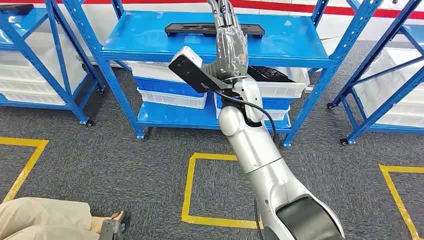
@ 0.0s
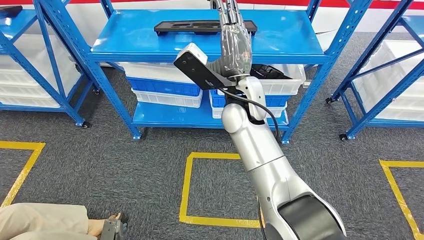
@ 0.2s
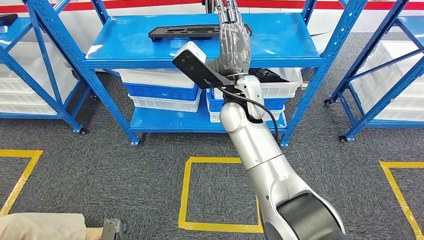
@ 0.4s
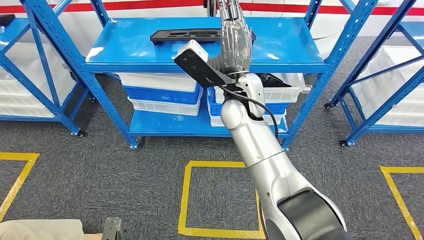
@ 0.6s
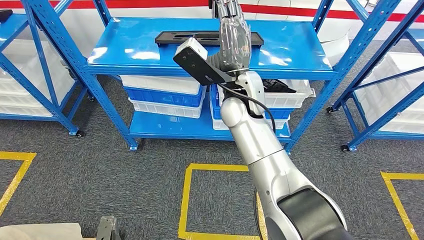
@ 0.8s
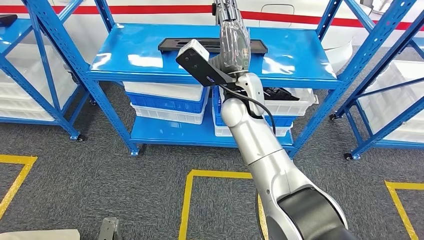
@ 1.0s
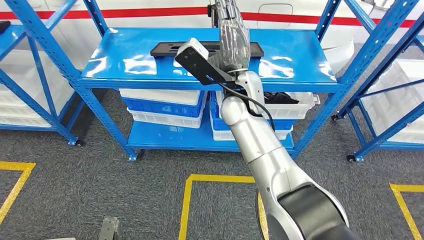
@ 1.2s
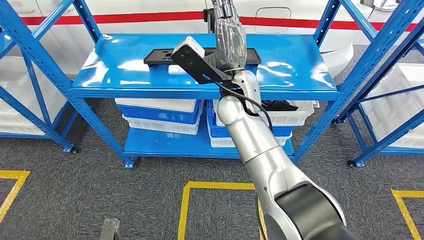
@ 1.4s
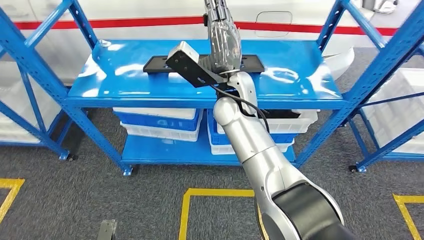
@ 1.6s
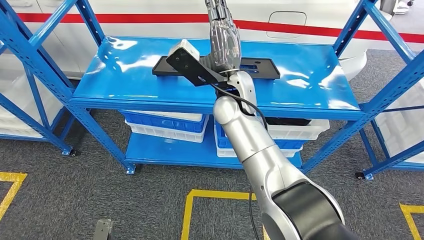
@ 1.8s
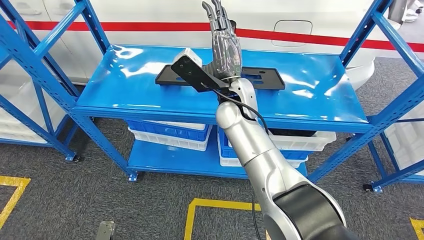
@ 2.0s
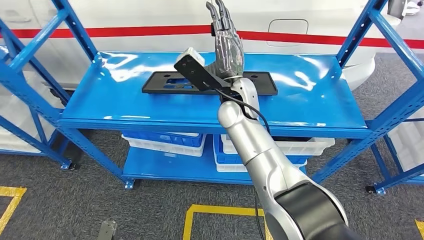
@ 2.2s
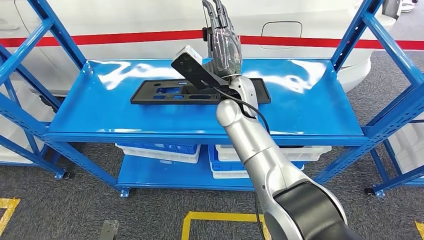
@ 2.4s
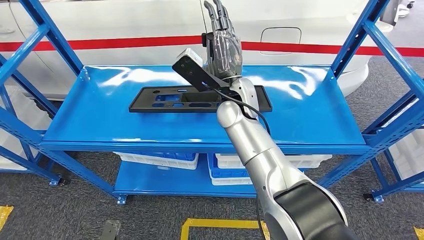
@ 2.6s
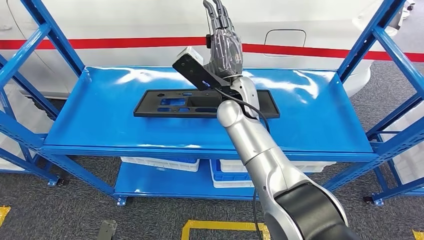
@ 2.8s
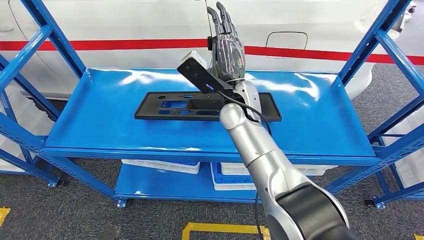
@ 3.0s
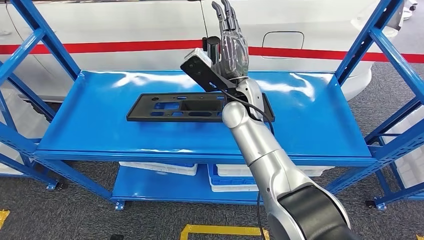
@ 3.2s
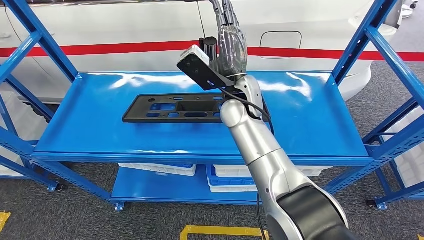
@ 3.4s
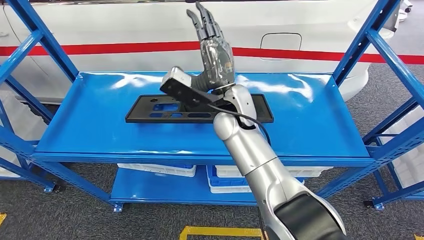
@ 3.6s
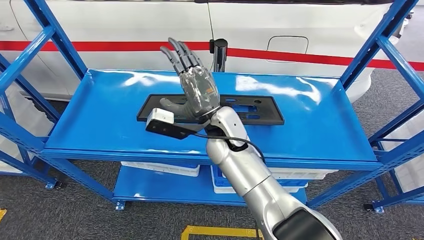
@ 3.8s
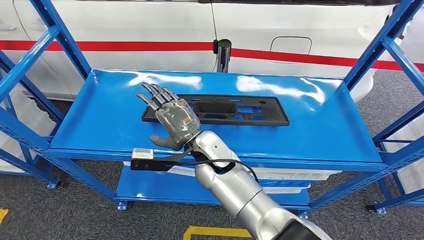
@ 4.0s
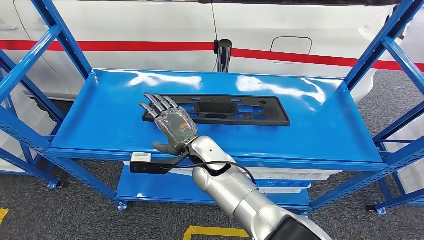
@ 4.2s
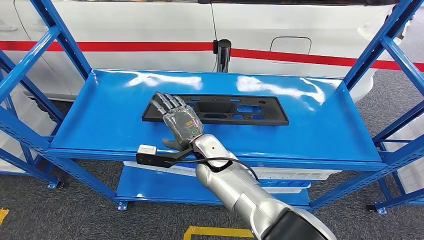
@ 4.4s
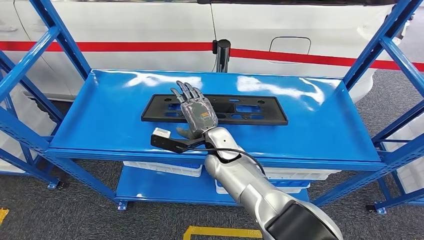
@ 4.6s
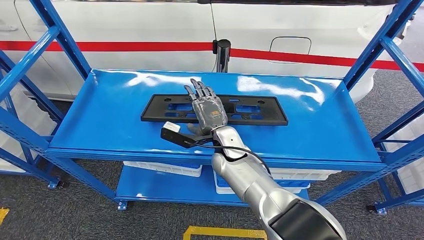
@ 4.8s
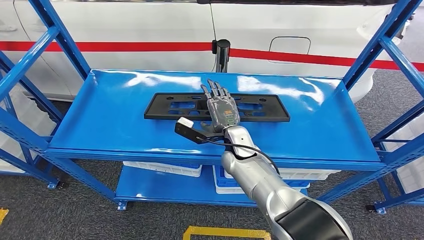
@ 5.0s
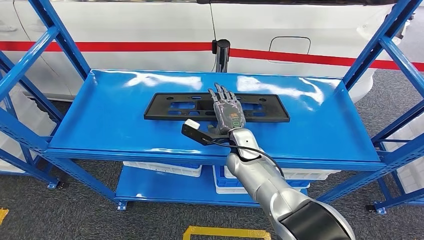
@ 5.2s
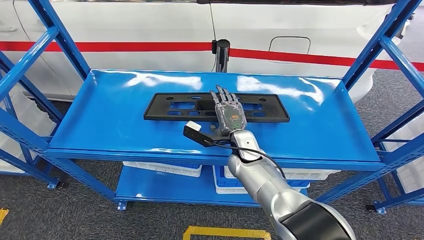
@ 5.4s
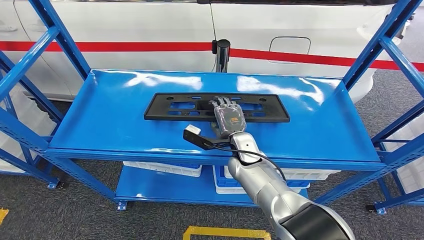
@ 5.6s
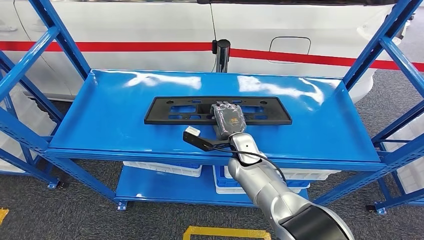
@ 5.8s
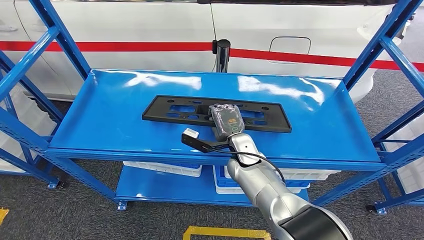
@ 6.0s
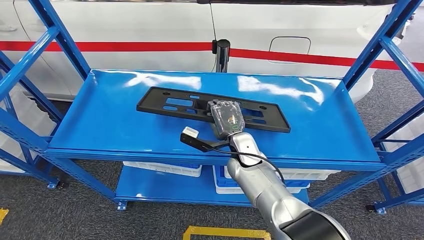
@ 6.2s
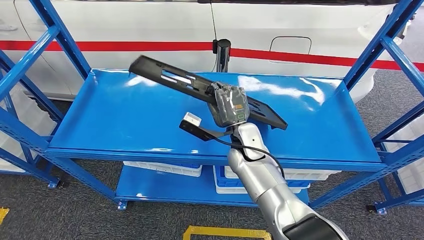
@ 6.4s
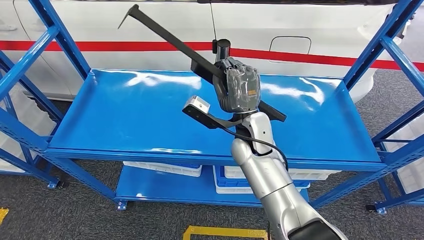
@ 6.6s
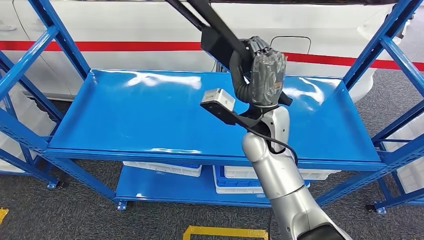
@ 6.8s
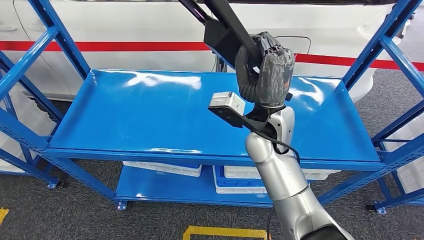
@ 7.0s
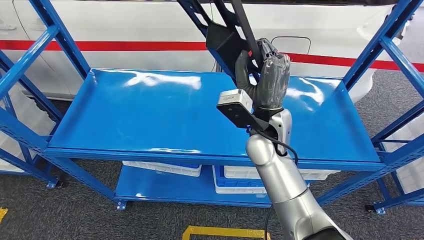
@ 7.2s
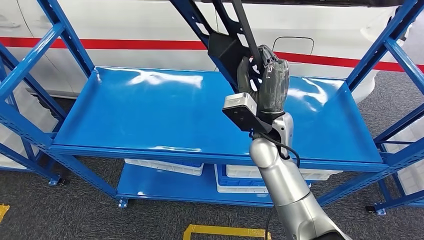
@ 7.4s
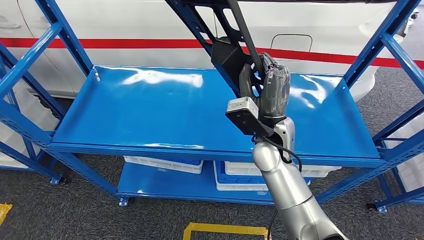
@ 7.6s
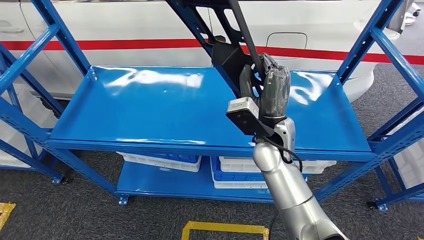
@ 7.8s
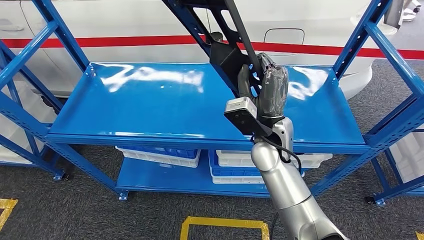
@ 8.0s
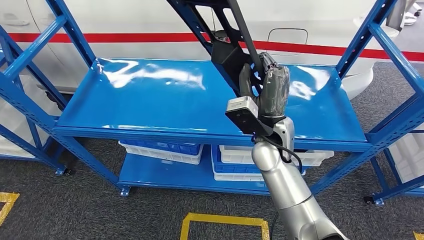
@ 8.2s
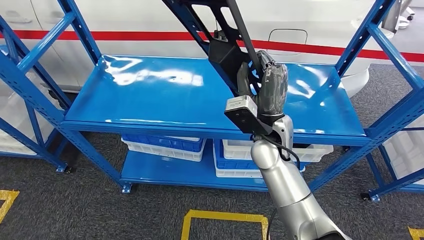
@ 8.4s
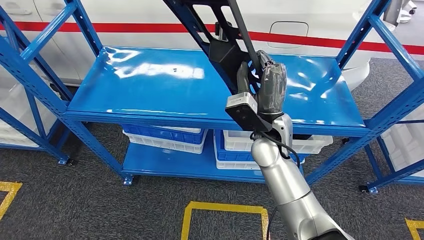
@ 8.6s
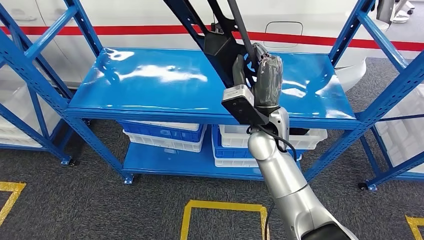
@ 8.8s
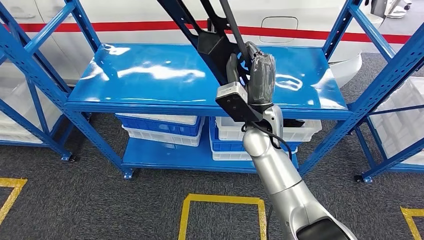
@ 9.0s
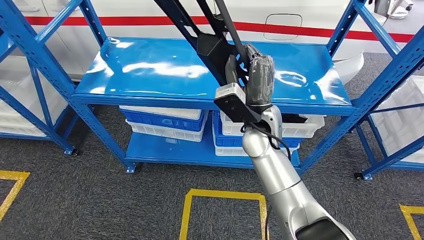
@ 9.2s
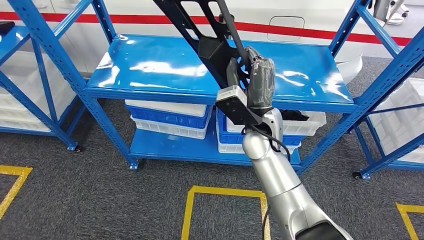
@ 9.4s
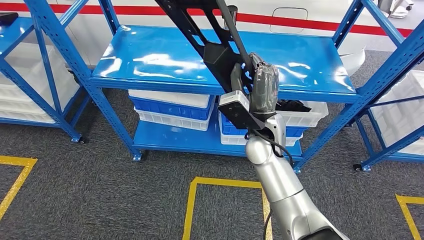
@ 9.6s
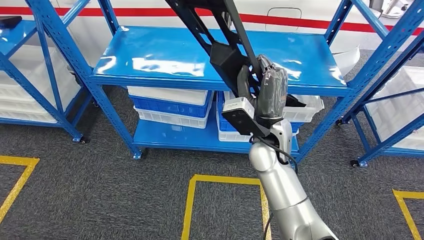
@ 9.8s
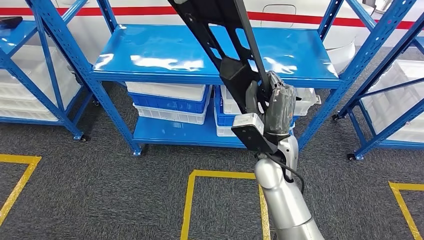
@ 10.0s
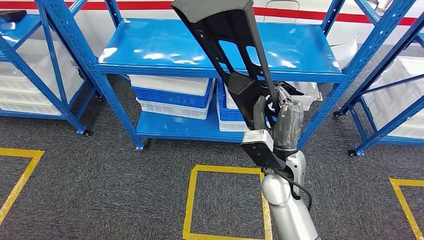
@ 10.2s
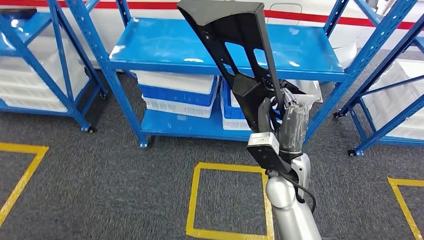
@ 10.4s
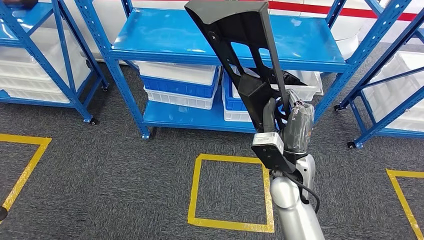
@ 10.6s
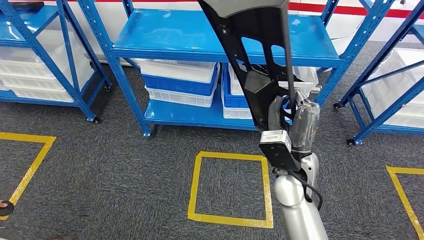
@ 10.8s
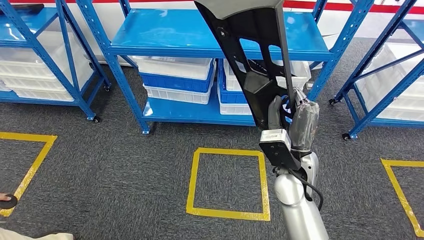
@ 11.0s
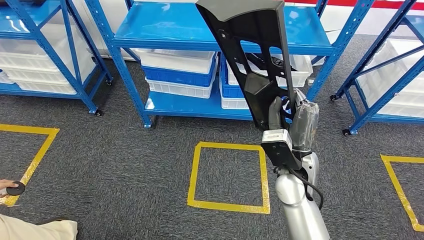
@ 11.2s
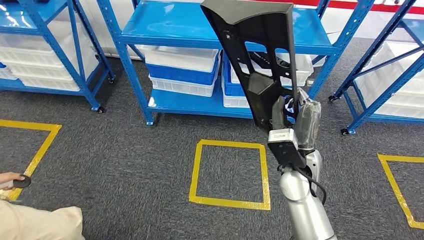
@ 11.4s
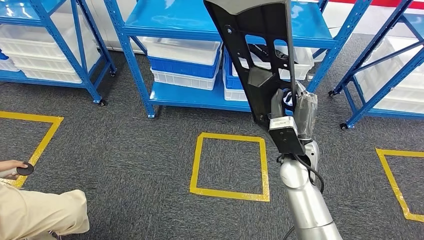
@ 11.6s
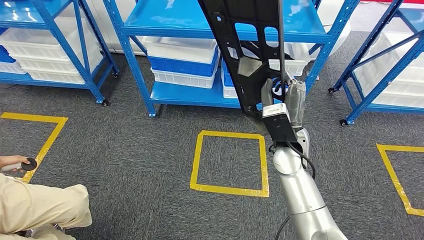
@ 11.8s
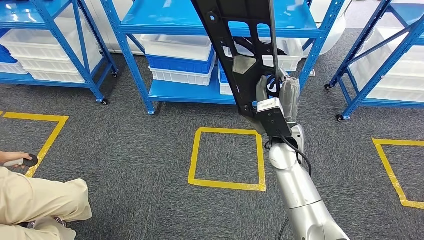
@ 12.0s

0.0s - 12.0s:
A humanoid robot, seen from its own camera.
Step, 0.0s - 10.2s: Pick up the large material from the shelf.
4.4s - 6.0s: The right hand shifts about 10 cm to the right.

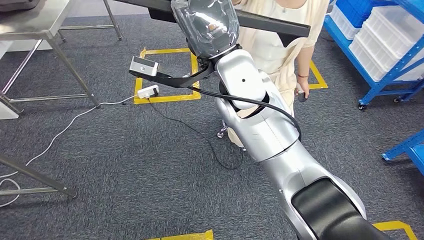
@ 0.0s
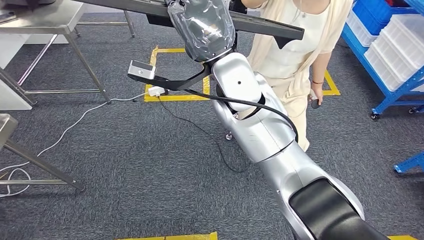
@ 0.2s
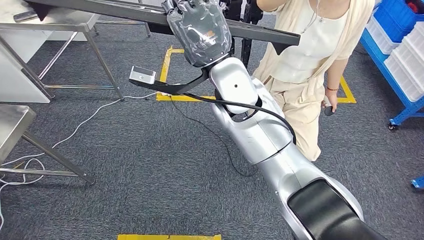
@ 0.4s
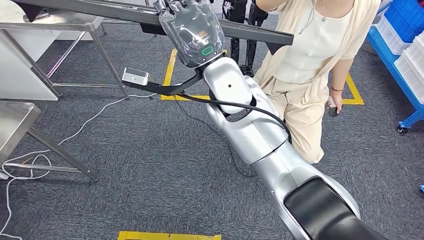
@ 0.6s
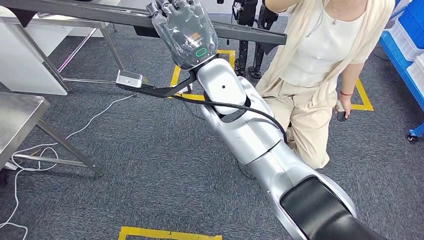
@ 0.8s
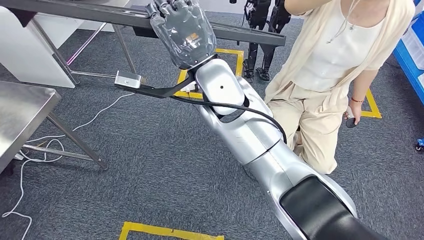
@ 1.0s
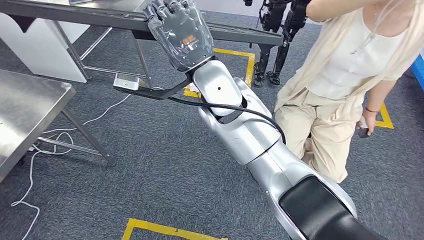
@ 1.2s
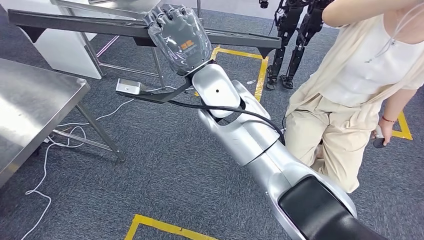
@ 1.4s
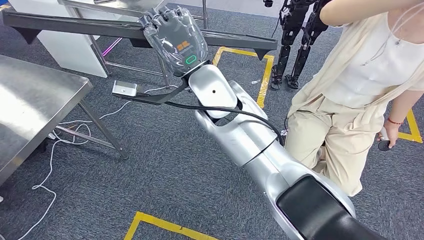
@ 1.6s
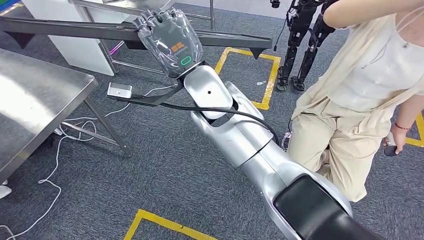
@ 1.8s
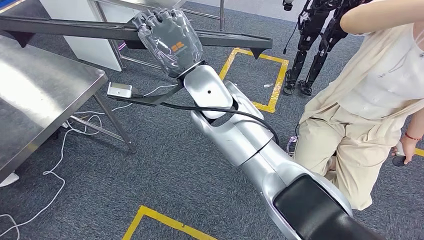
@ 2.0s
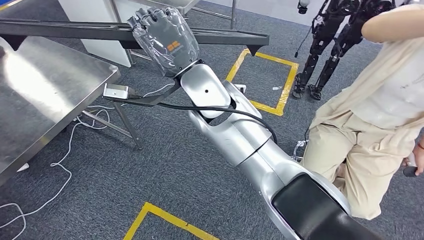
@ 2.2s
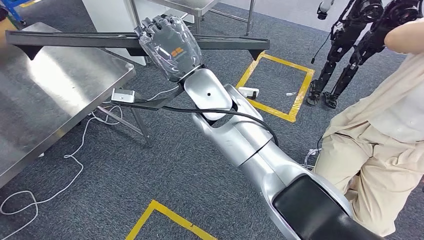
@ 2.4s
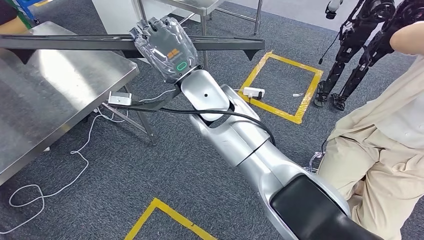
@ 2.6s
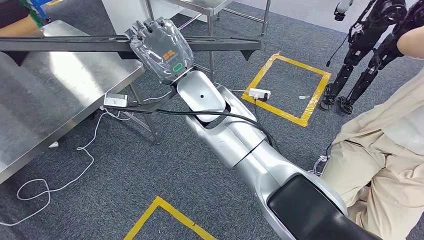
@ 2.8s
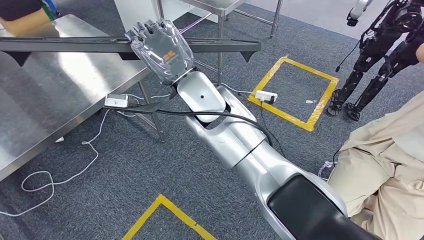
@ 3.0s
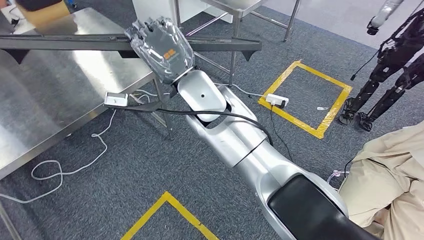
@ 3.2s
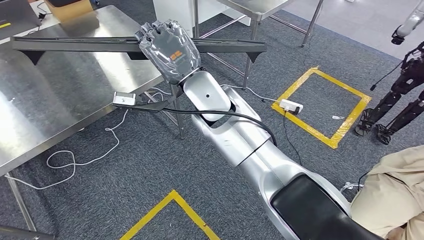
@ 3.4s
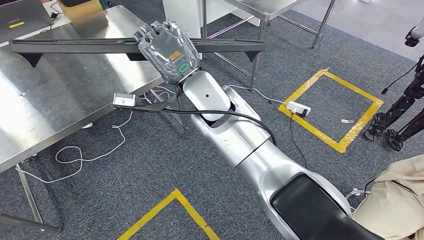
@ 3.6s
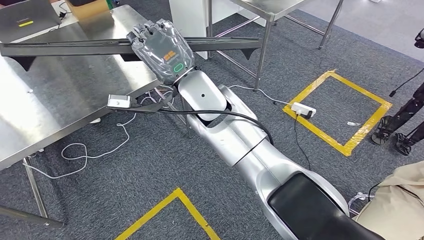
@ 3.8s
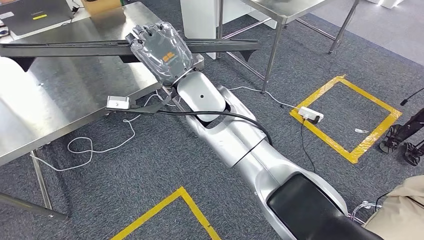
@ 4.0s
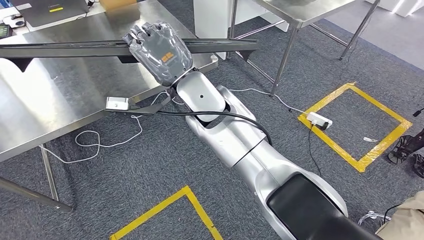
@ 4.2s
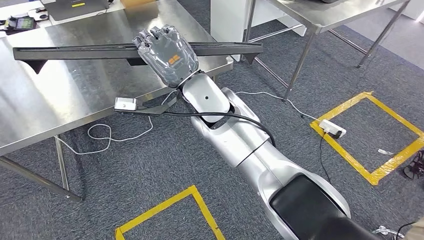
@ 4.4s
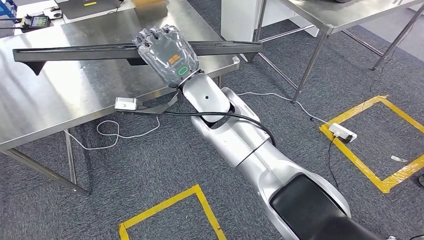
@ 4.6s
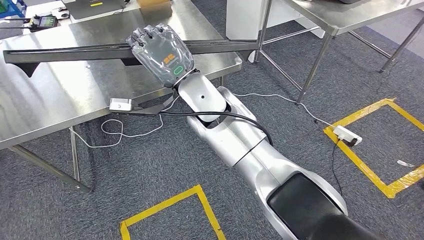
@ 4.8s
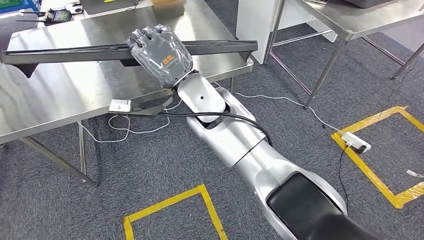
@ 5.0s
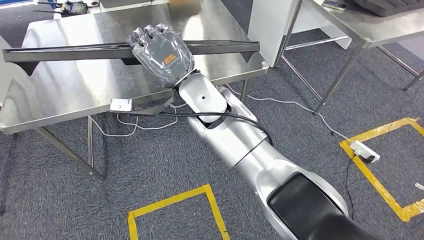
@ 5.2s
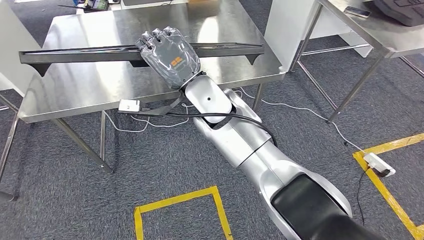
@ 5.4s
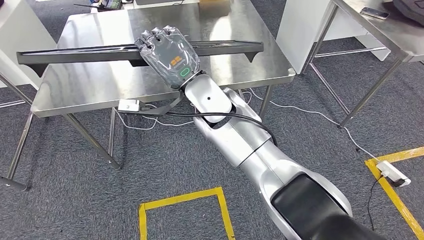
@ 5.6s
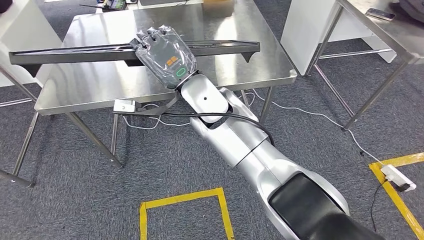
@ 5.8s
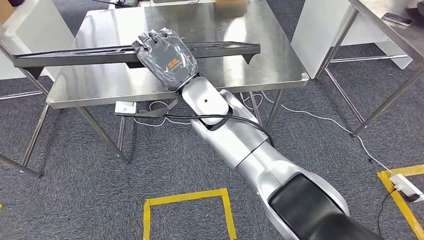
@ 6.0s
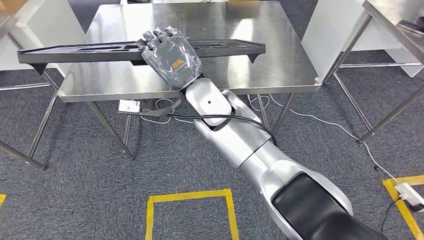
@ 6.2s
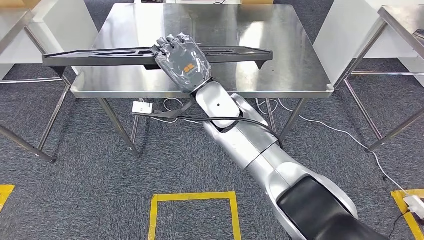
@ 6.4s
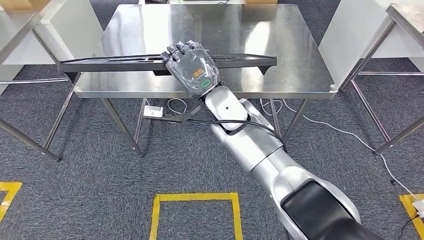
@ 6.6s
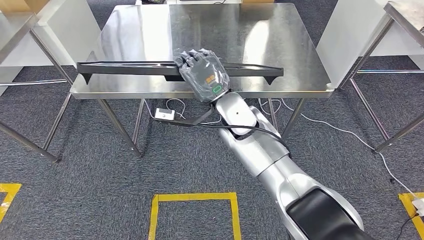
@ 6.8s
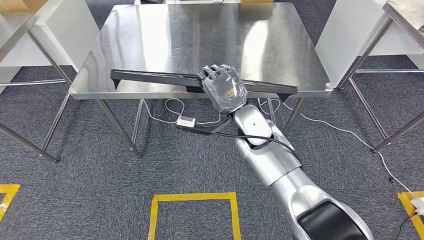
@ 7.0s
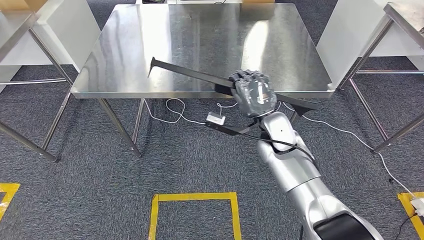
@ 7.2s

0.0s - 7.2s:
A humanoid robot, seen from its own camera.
Step, 0.0s - 5.4s: Move the large material to the workbench.
